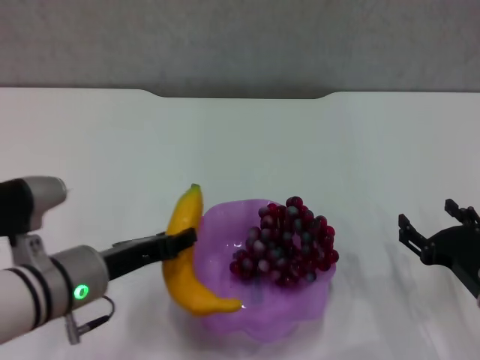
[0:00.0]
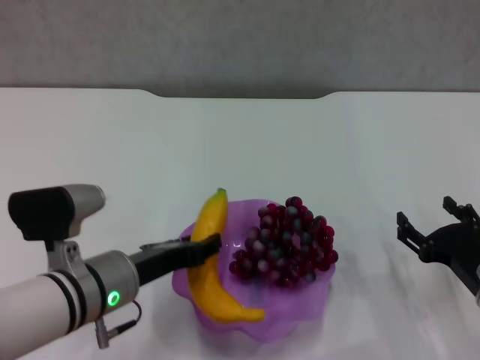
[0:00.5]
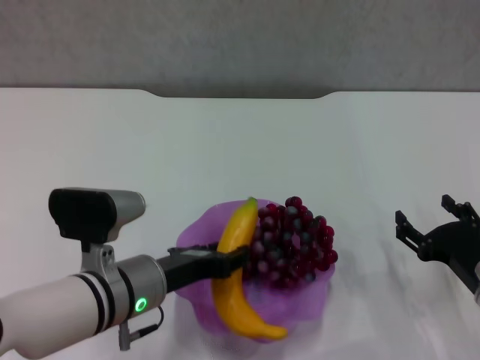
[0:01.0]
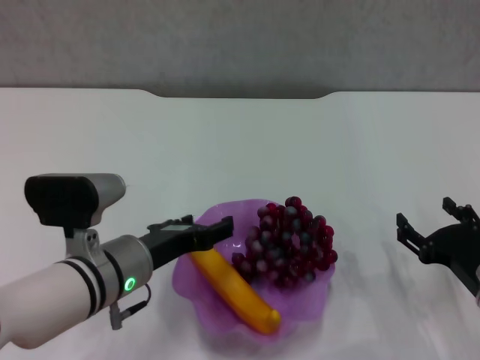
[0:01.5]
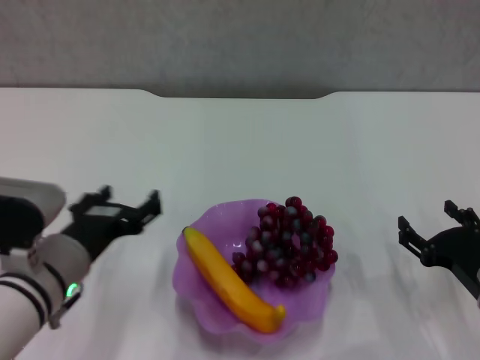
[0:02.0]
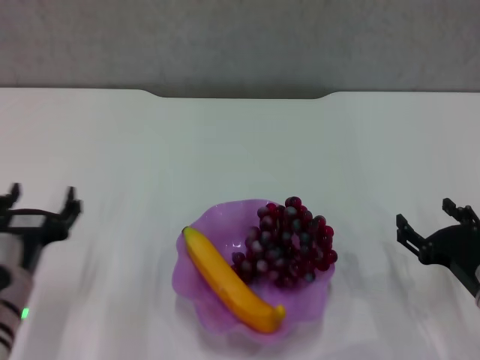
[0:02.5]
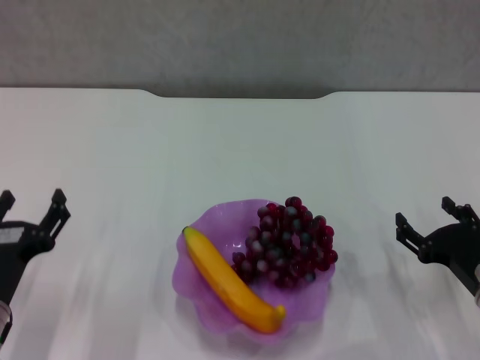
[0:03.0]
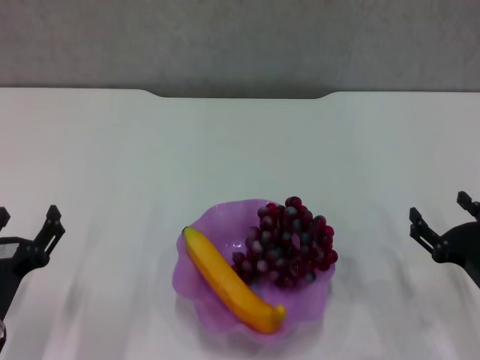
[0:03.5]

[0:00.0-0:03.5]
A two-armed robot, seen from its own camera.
0:00.0 to 0:02.0: The left gripper opens.
0:02.0 to 0:03.5: The left gripper moves to the left and downward, approximately 10 cm.
